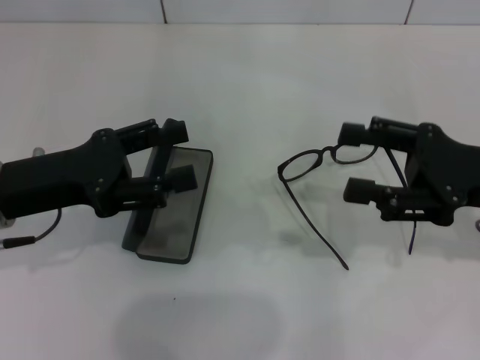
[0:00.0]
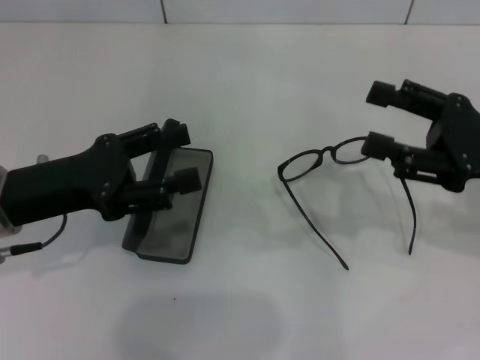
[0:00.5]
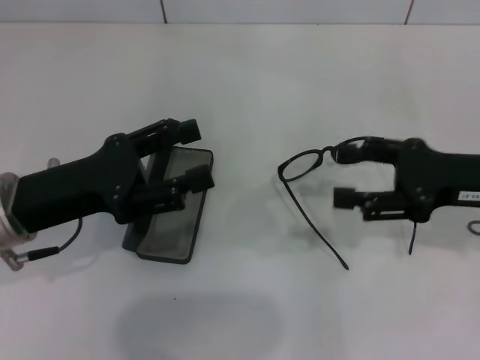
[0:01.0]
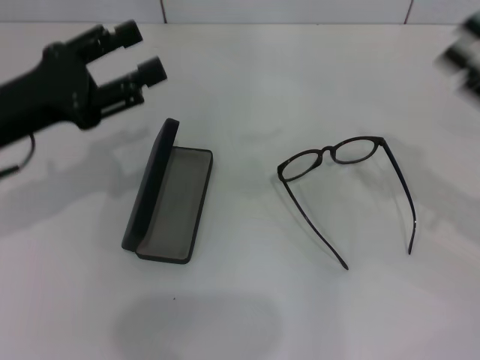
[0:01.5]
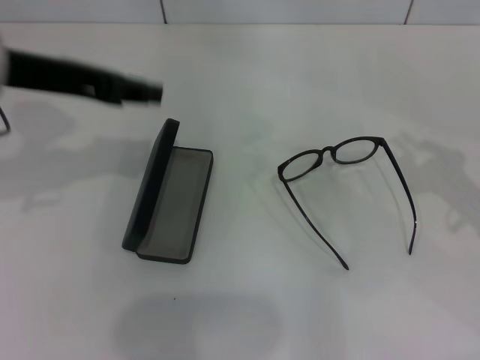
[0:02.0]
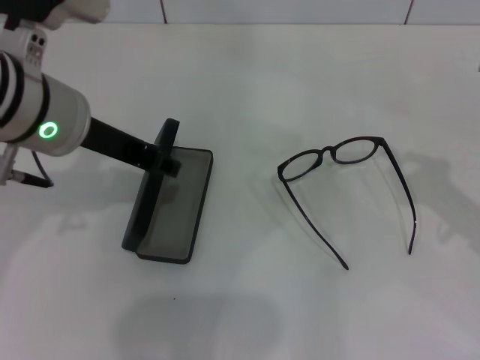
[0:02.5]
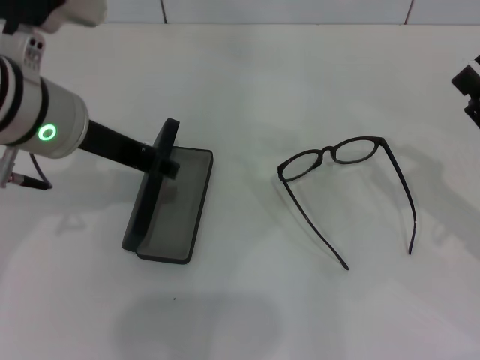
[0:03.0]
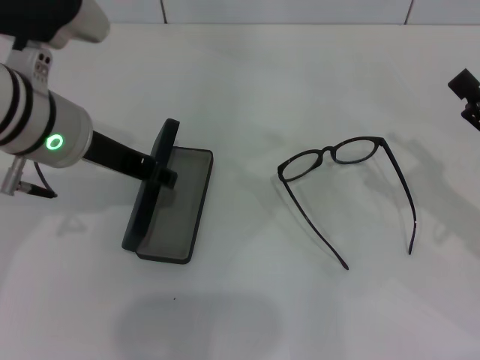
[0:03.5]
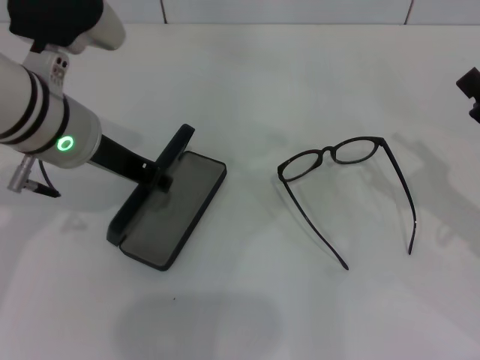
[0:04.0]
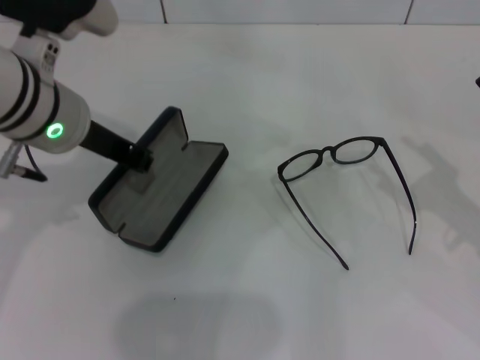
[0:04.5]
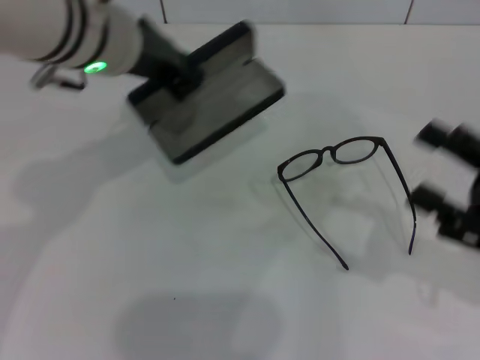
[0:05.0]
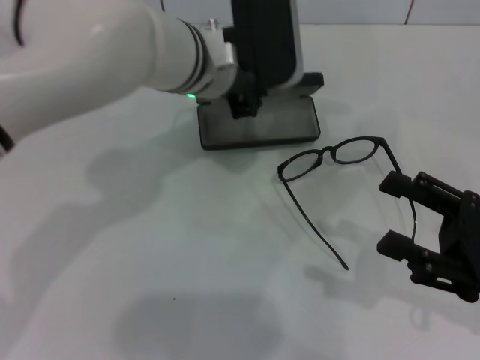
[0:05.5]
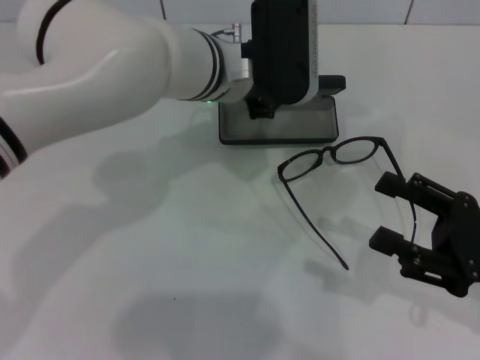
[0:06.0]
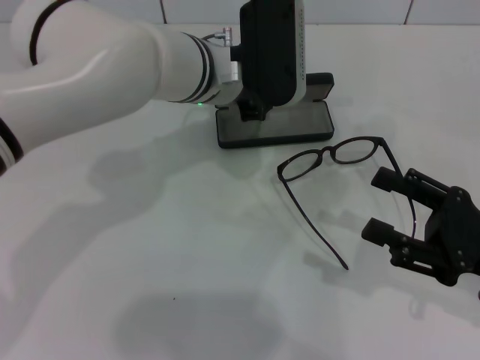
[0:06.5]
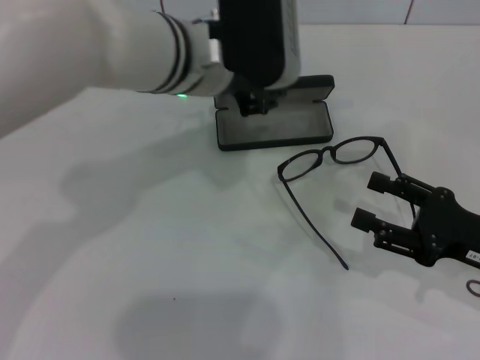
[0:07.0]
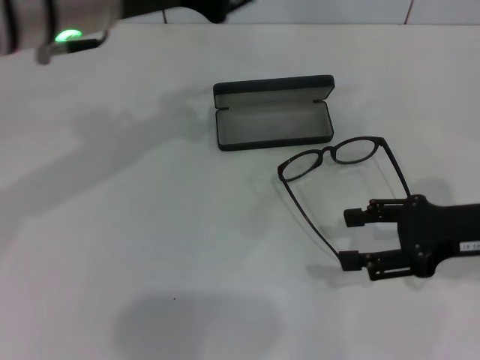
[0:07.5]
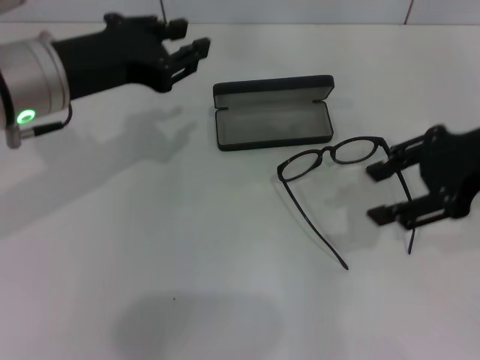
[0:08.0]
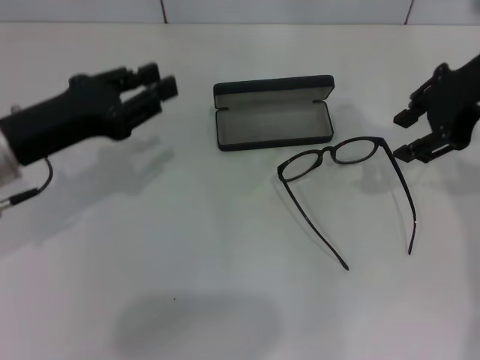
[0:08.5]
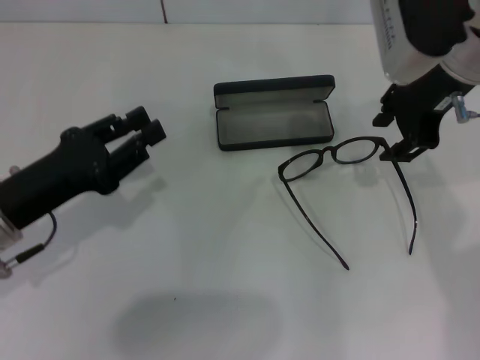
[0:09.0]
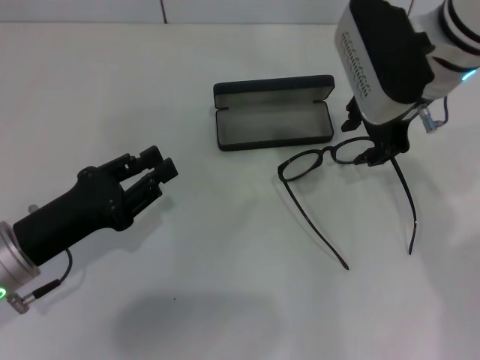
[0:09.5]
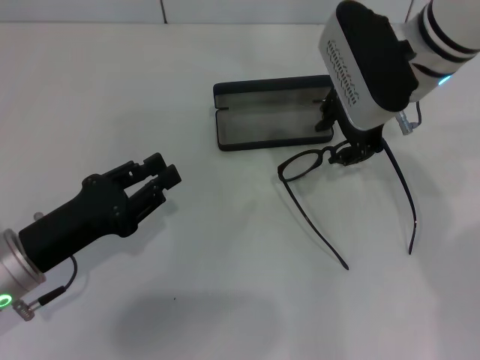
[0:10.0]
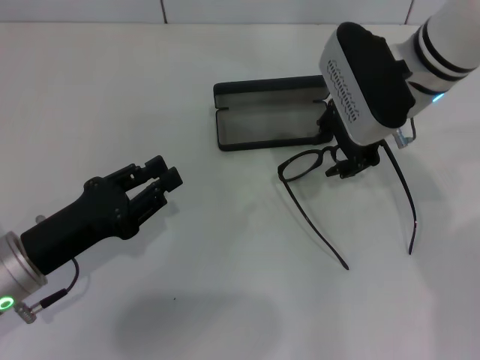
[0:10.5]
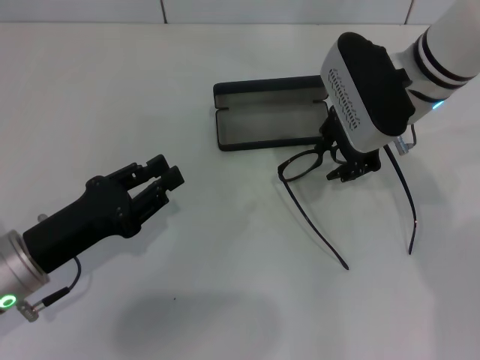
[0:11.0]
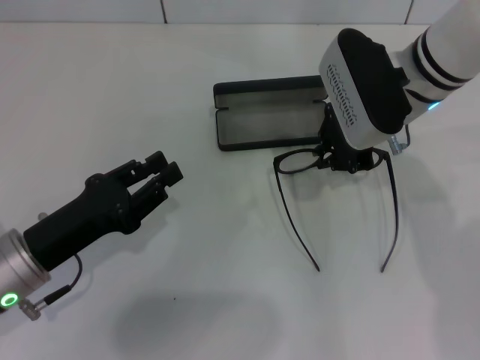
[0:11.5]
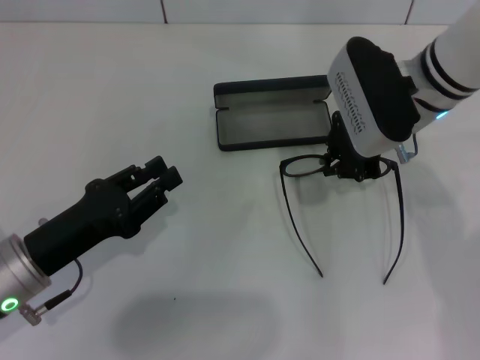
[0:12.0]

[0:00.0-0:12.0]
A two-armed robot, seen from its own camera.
Step, 0:00.0 to 0:04.0: Grab the glasses case with your left hand.
Step, 0:04.5 to 0:06.5: Place the glasses case in the center of the table with your left hand.
Step, 0:07.0 to 0:11.5: Grab the eyeglass frame with your right hand.
0:00.0 to 0:02.0: The left gripper is displaced upward and forward by roughly 15 cm, and closes up. Meanwhile the right gripper travels to the right by roughly 5 cm, and closes up.
0:02.0 to 0:04.0: The left gripper goes about 10 cm to the right and downward. Meanwhile the right gripper opens its fingers.
0:04.0 to 0:06.0: The right gripper shifts by roughly 5 cm. Meanwhile the left gripper shifts approximately 15 cm to the right and forward.
0:06.0 to 0:08.0: The left gripper moves to the left and backward, approximately 15 cm. Meanwhile the right gripper shifts about 20 cm upward and forward.
0:08.0 to 0:10.0: The left gripper heads downward and backward, covering roughly 15 cm; the right gripper moves to the left and forward, roughly 15 cm.
0:10.0 to 0:12.0: The right gripper closes its fingers.

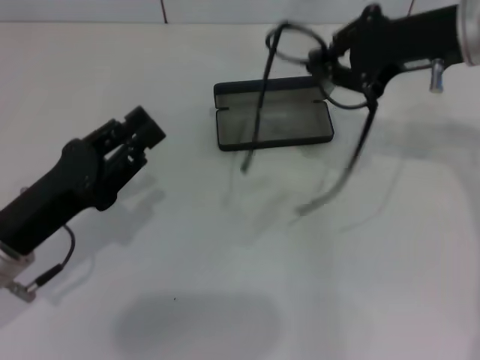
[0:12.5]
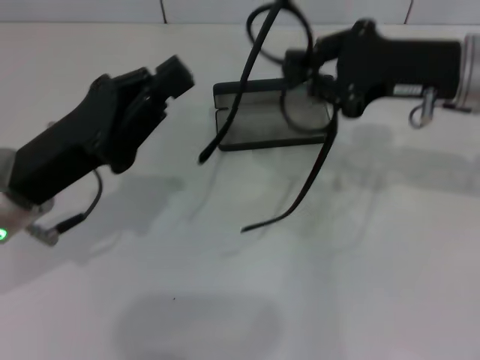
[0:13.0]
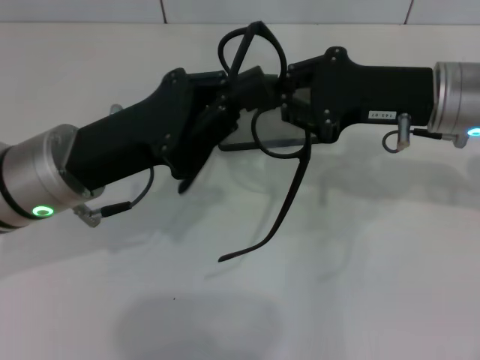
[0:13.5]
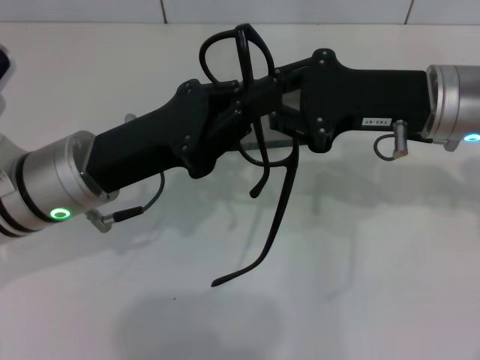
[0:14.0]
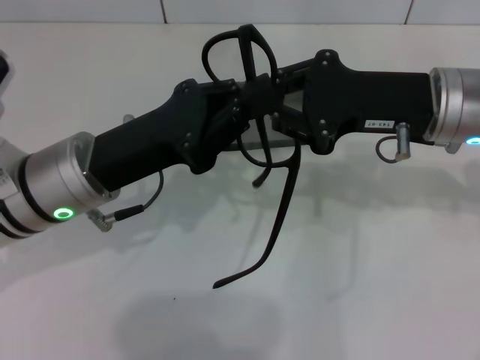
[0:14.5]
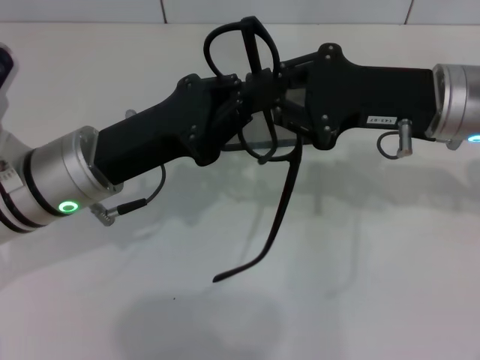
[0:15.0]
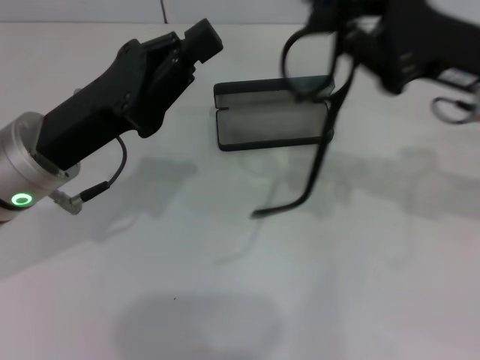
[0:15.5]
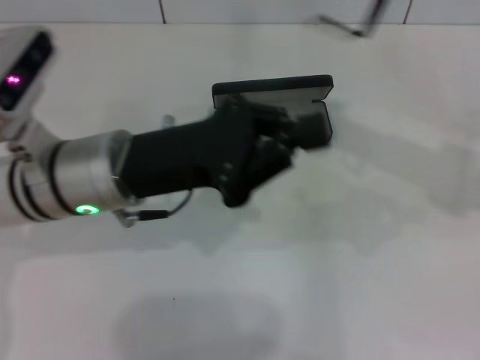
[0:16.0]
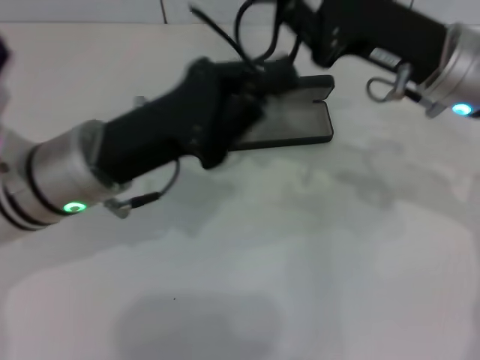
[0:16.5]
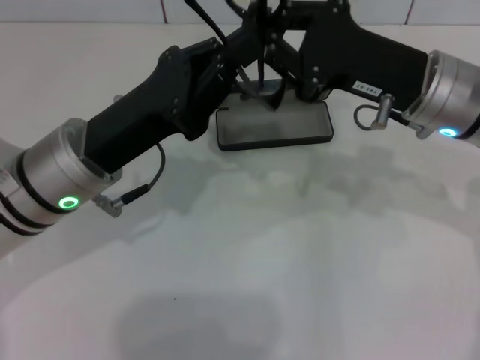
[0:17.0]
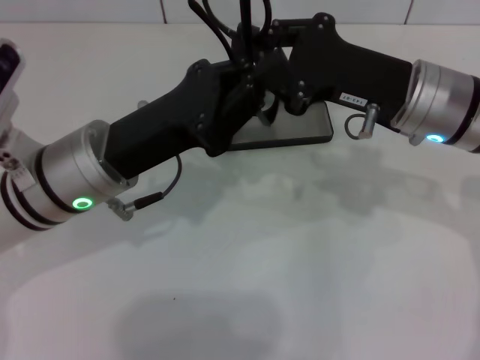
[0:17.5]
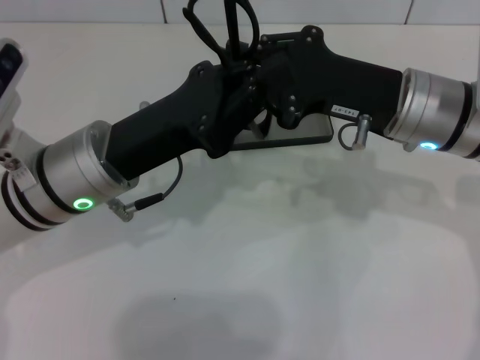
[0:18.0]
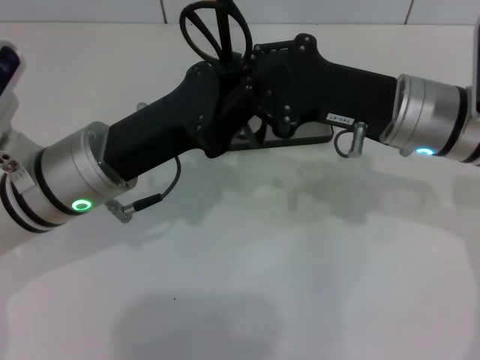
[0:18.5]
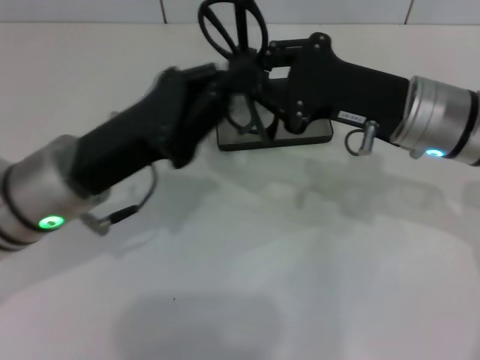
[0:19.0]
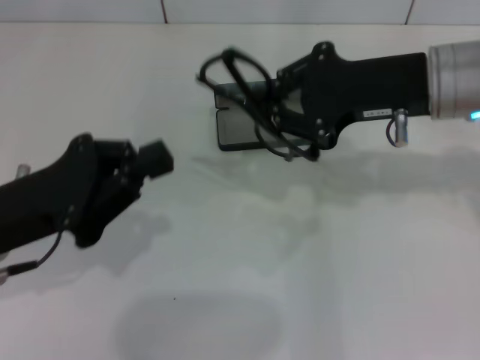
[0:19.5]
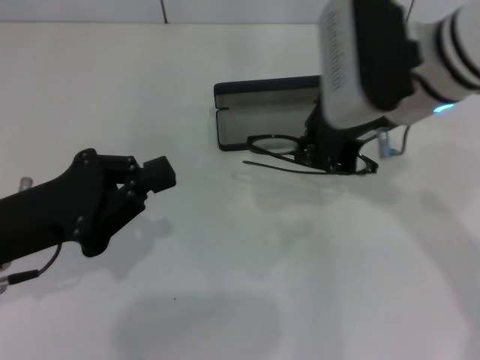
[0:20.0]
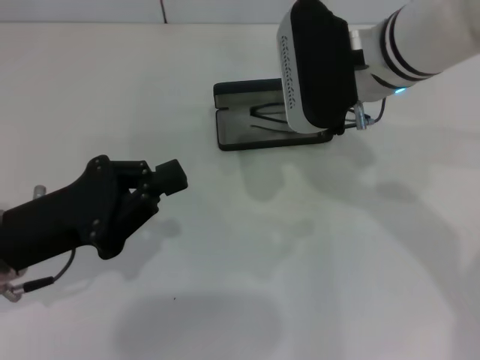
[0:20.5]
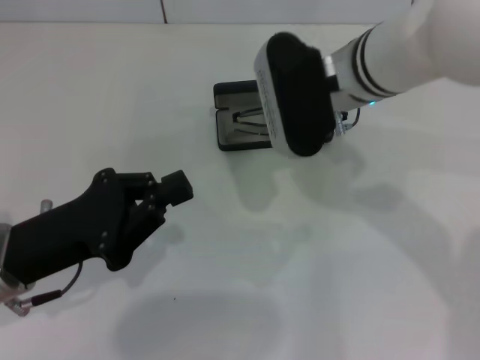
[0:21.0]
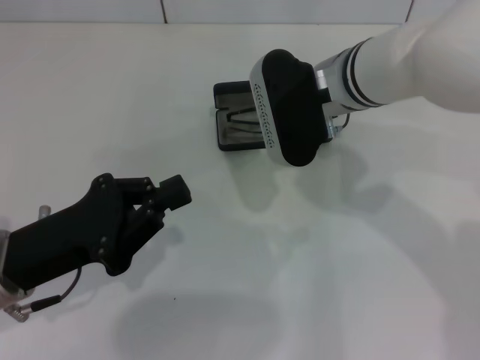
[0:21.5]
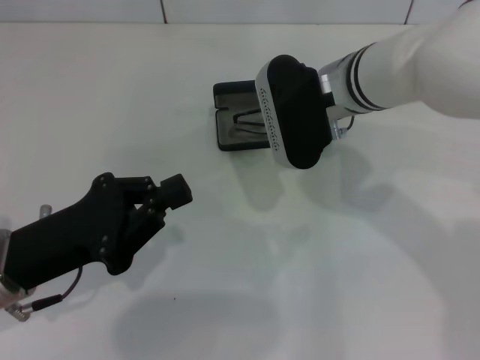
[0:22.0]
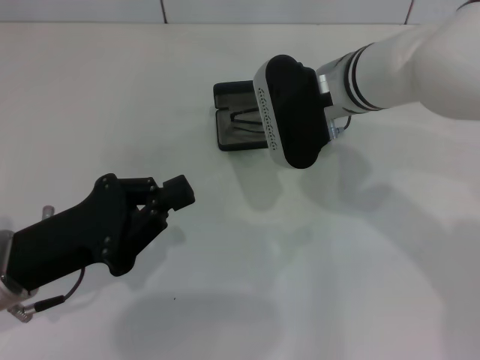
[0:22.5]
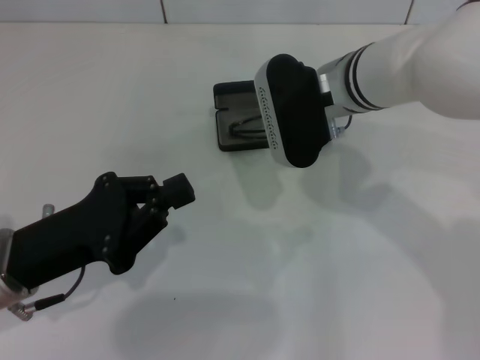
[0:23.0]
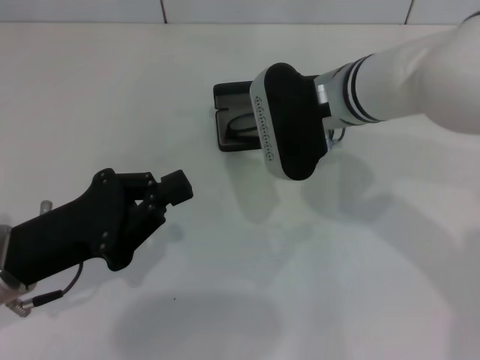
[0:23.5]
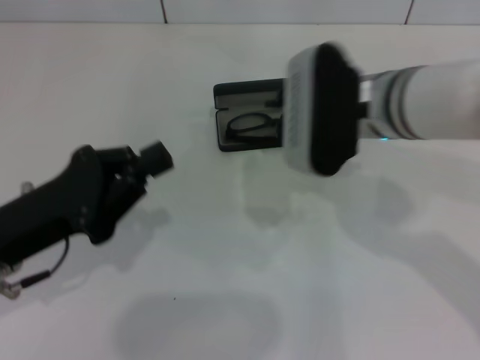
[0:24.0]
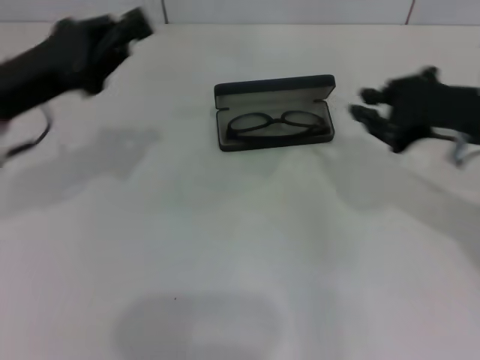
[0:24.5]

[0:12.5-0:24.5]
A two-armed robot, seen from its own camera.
Step, 0:12.5 to 0:18.5: Lift the glasses with your right hand.
Step, 0:19.0 to 0:23.0: Put the glasses into the case with your right hand.
0:12.5 to 0:14.5: The right gripper travels backward by approximately 5 cm; the left gripper shifts roughly 10 cm to the right and forward.
0:18.5 to 0:20.5: The left gripper heads to the left and backward, covering about 10 cm. The right gripper travels to the left by approximately 5 cm.
0:20.5 to 0:22.5: The right gripper shifts by approximately 5 cm.
0:22.5 to 0:24.5: The left gripper is displaced forward and upward by some 10 cm, while the right gripper travels to the right and backward by approximately 15 cm.

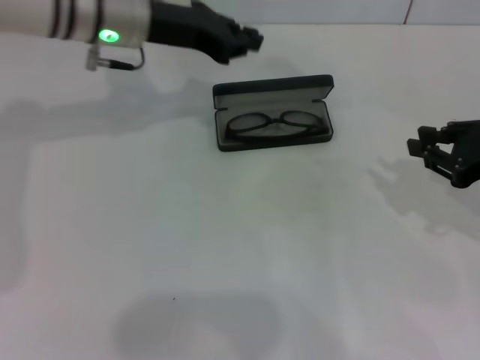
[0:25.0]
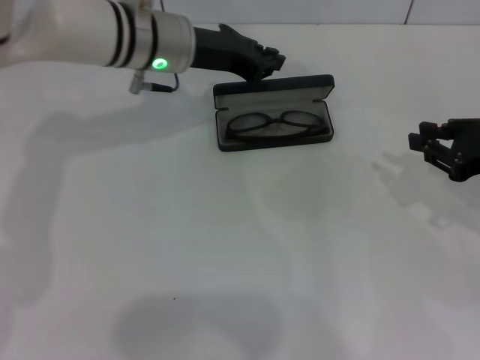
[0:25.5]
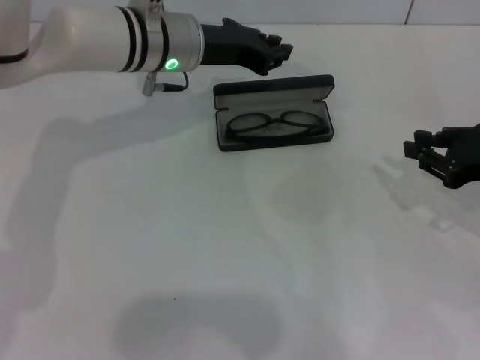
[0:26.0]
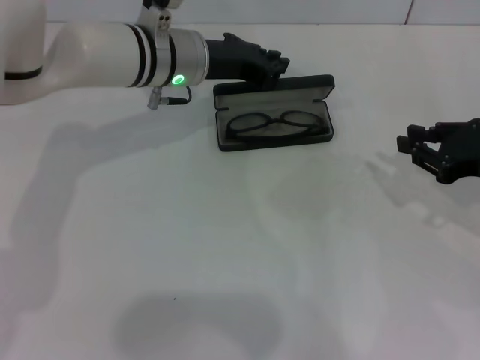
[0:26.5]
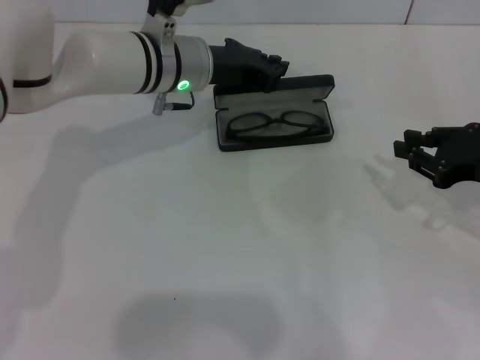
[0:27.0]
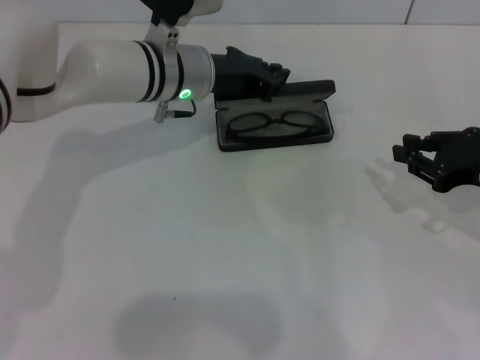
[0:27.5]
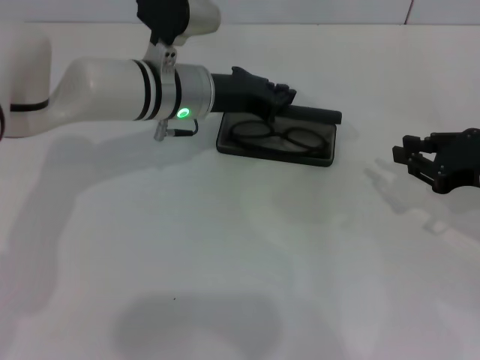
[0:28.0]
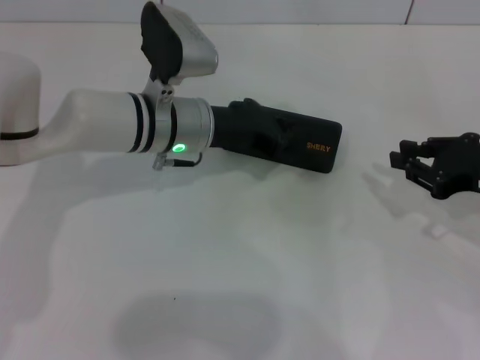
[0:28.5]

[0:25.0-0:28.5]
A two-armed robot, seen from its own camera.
Step, 0:25.0 to 0:28.0: Close the glasses case with your left hand.
0:25.0 to 0:27.0: The left gripper goes approximately 10 cm downward and to the right.
0:27.0 to 0:28.5: The left gripper moves approximately 5 cm.
